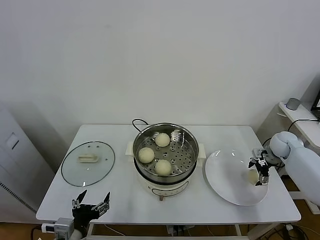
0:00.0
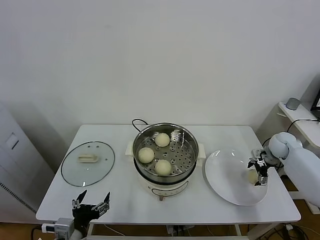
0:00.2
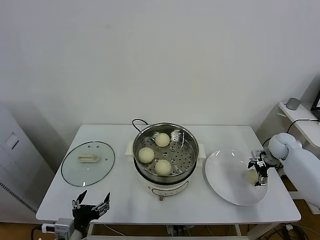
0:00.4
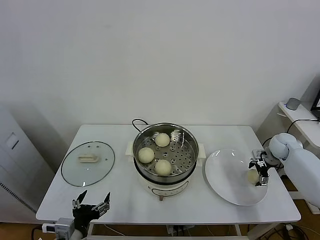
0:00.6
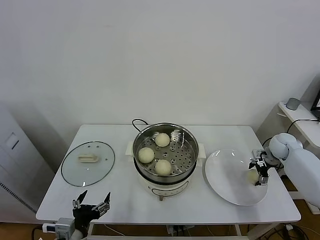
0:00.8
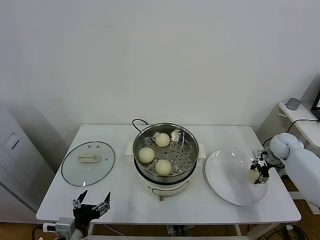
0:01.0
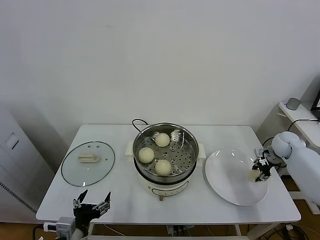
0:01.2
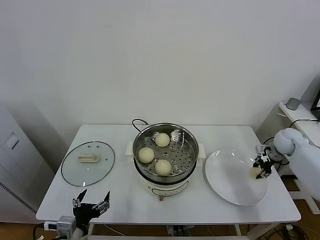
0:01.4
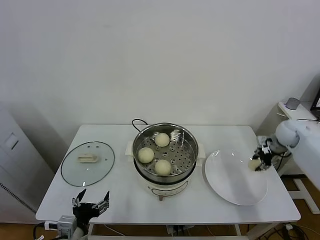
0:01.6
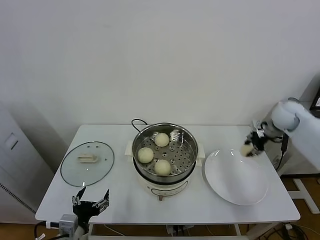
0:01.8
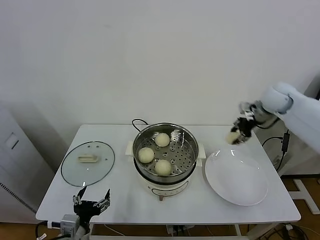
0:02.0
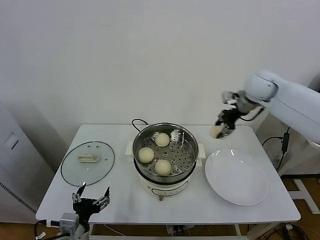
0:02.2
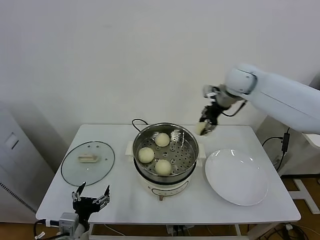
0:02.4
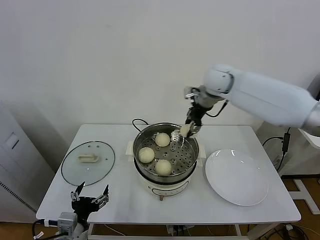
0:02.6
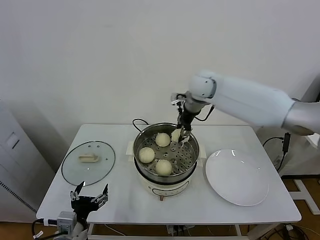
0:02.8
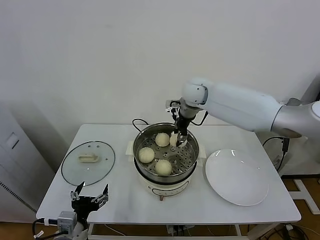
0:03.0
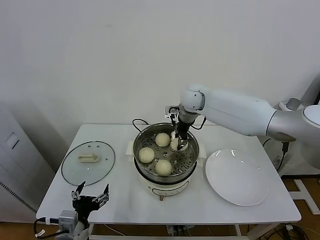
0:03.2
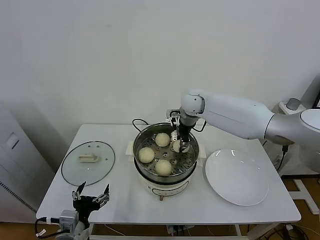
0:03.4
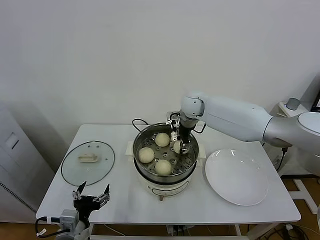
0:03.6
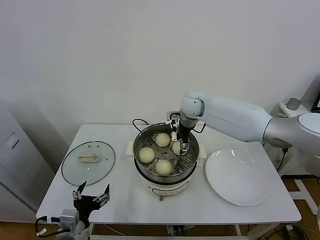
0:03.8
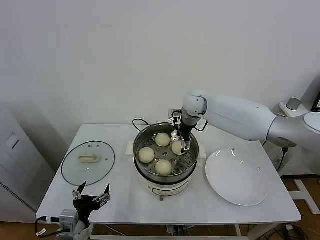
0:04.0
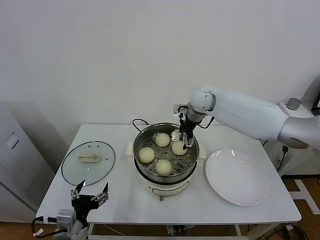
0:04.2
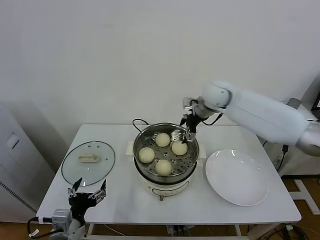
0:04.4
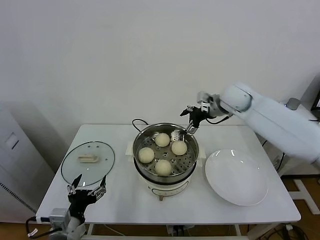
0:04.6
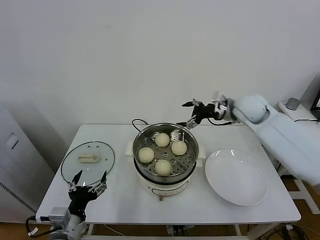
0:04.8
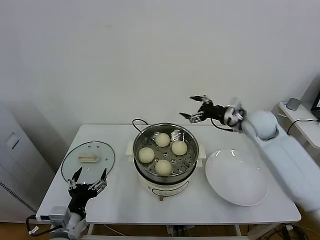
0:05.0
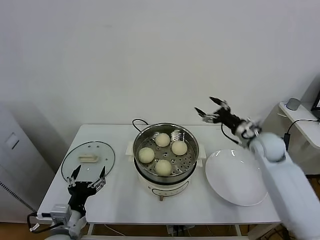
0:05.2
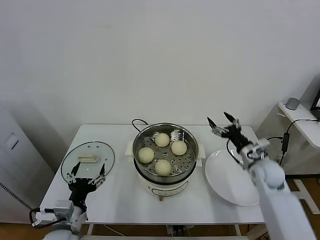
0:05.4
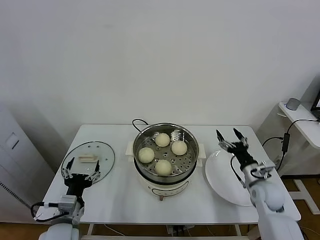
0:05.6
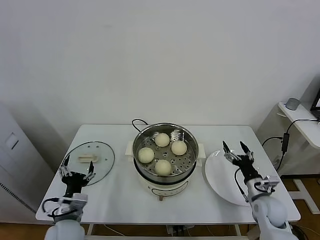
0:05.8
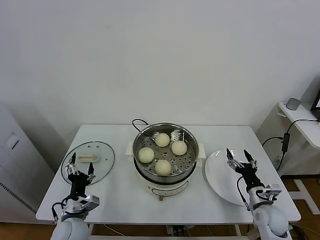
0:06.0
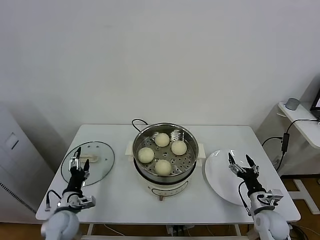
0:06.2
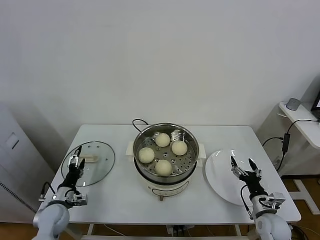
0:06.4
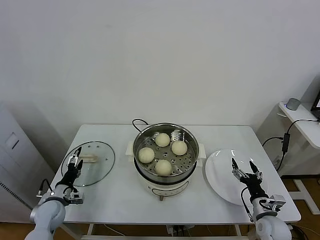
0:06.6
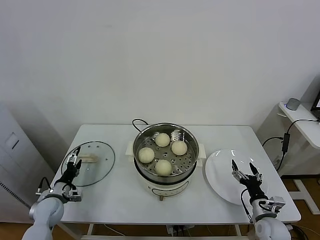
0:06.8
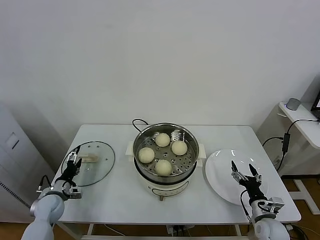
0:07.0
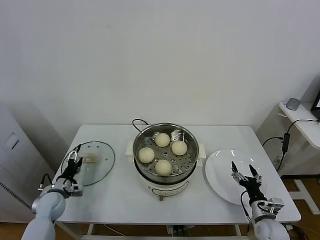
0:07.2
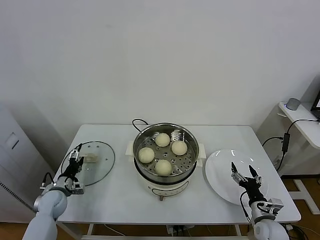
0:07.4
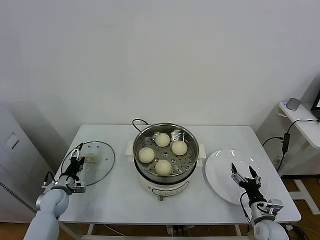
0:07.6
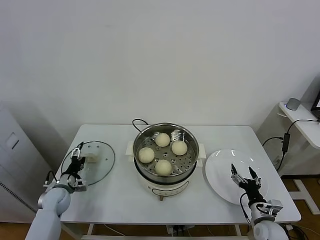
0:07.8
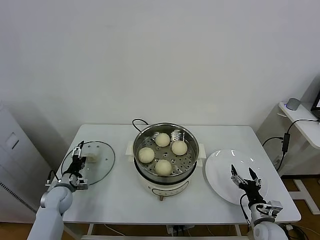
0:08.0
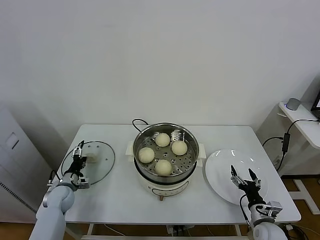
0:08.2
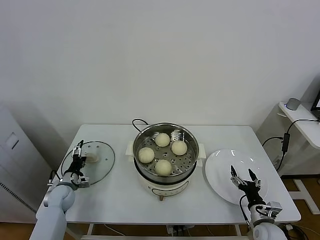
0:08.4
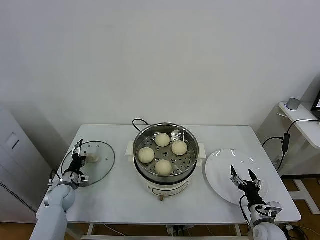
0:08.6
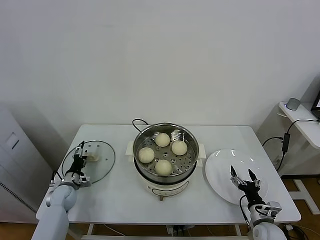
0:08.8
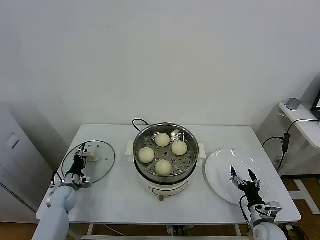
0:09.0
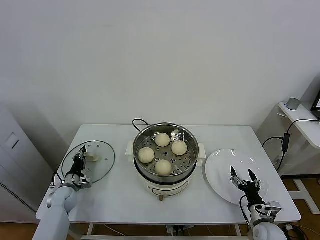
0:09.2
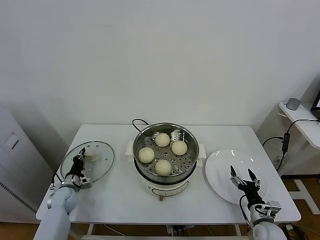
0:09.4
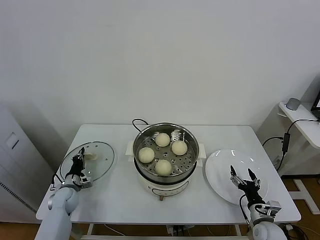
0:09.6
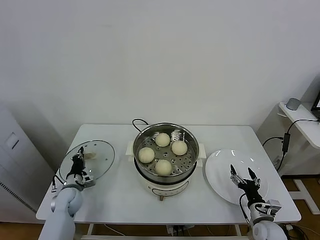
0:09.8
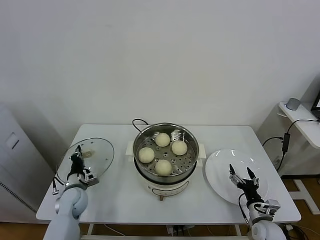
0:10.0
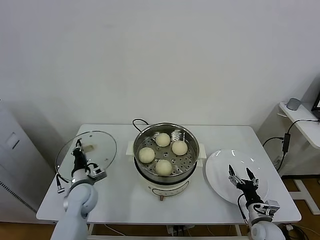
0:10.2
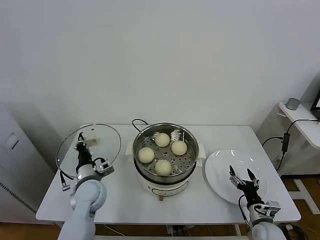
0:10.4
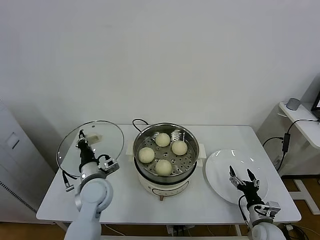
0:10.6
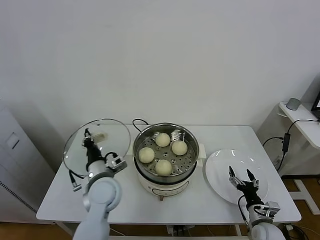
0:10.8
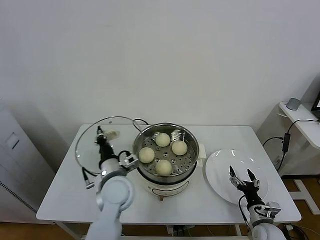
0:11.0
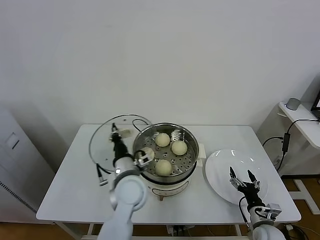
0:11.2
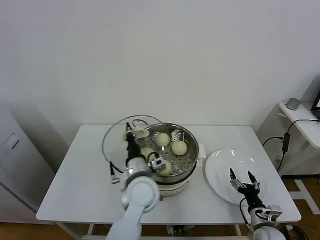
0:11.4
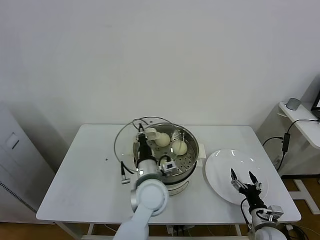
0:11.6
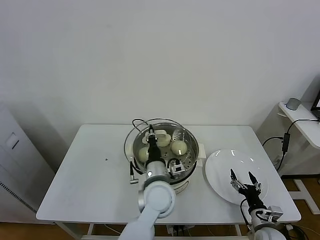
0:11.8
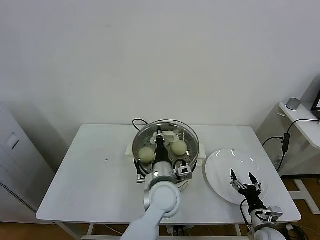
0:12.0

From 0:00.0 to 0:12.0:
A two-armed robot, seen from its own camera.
Task of the whole recording: take steamed baozi put them in steamer.
Step, from 0:01.4 to 0:04.0: Place the baozi on the steamer with right gripper.
Step, from 0:04.2 to 0:09.4: Grasp the pot lid with left gripper.
From 0:00.0 to 0:01.6: The right gripper travels upward by some 5 cm, and closes up.
From 0:01.6 to 0:03.0: The right gripper shifts about 35 cm to the left.
From 0:03.0 to 0:04.4: The right gripper shifts roughly 5 cm to the right, and opens its fingers.
From 0:04.4 to 0:06.0: The left gripper goes roughly 10 cm forward and downward, while the right gripper heads downward, backward and to the right, covering some 50 cm.
From 0:06.0 to 0:07.6: The right gripper ends up approximately 5 cm from where it was. The left gripper heads to the left, forward and downward, covering approximately 20 cm.
From 0:07.6 to 0:09.0: The left gripper closes its fingers.
From 0:09.0 to 0:10.4: The left gripper travels to the right and upward by approximately 20 cm, and closes its fingers.
From 0:10.4 to 0:12.0: The left gripper travels to the right by about 25 cm.

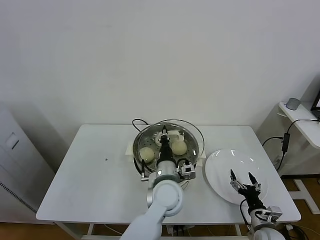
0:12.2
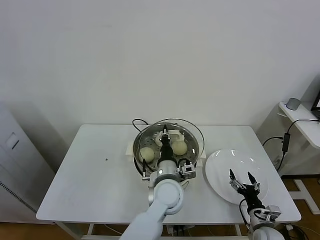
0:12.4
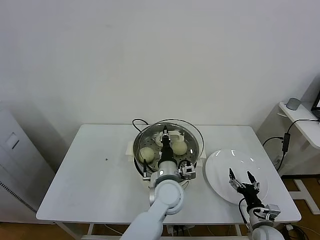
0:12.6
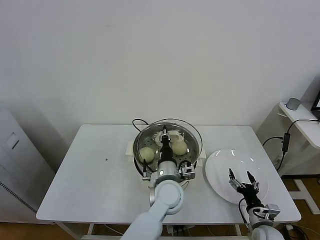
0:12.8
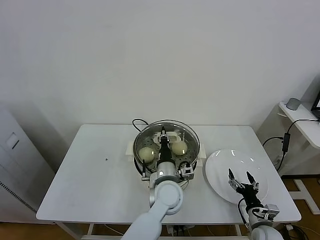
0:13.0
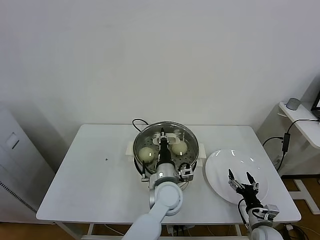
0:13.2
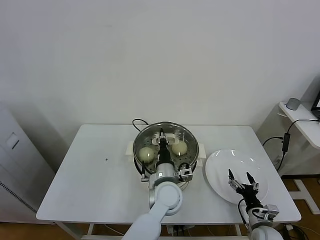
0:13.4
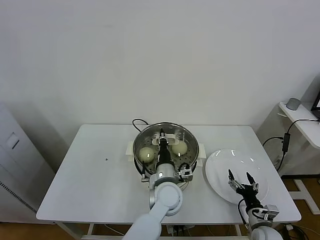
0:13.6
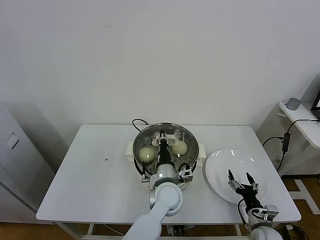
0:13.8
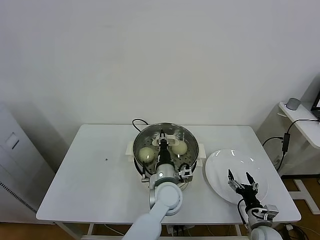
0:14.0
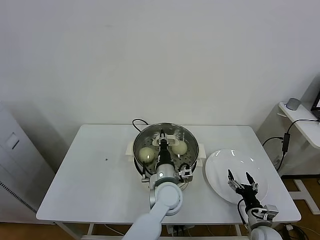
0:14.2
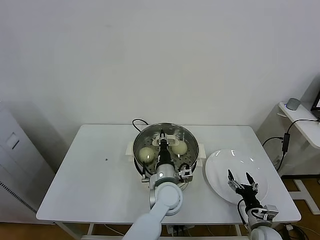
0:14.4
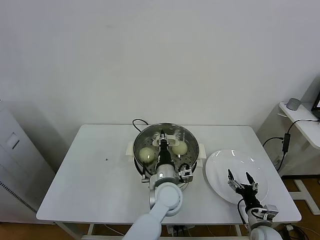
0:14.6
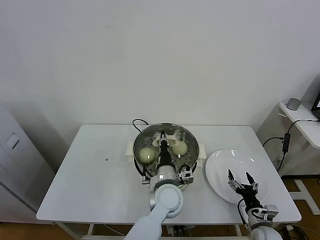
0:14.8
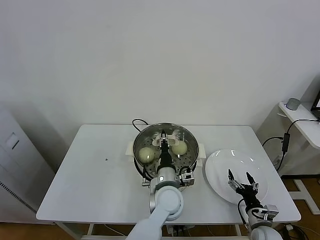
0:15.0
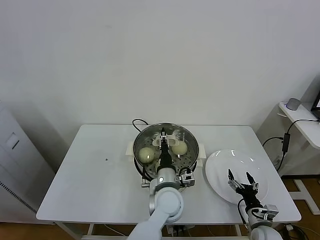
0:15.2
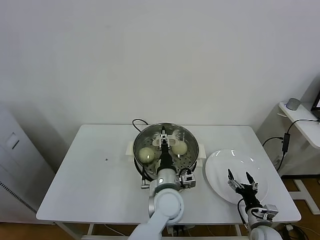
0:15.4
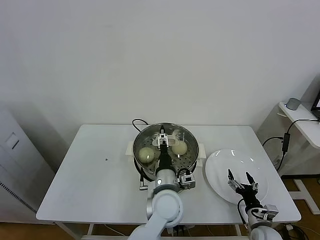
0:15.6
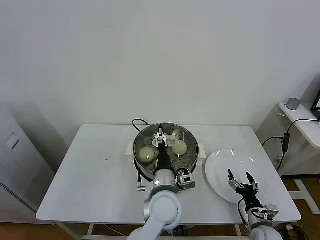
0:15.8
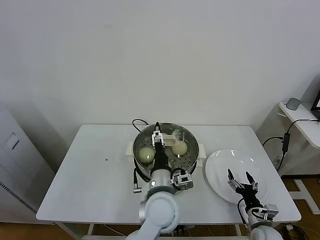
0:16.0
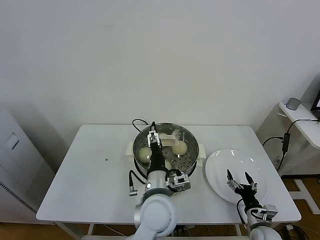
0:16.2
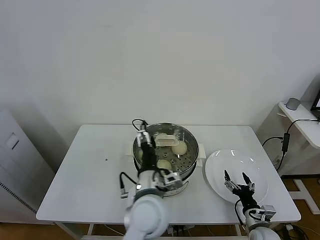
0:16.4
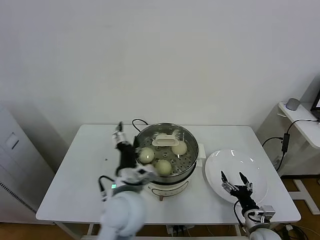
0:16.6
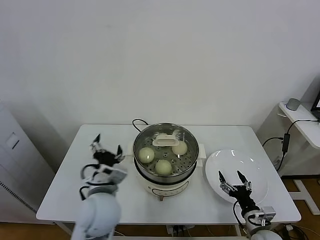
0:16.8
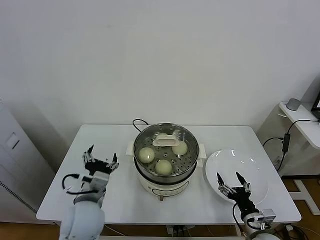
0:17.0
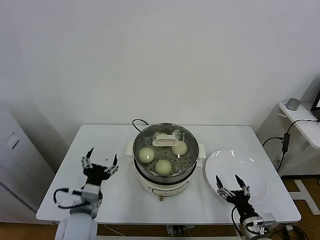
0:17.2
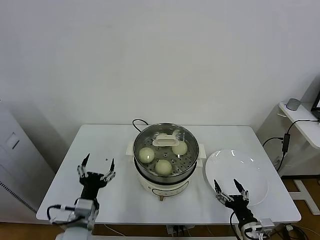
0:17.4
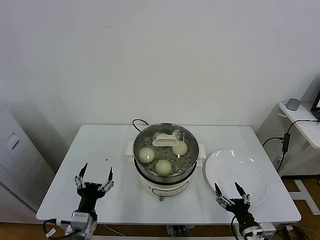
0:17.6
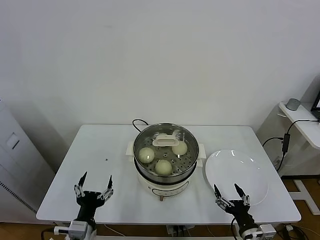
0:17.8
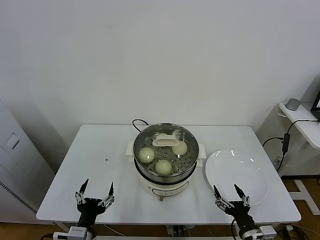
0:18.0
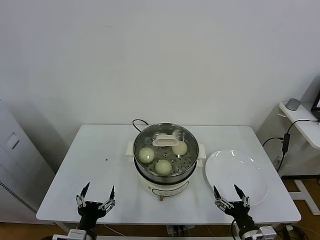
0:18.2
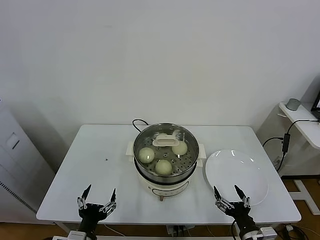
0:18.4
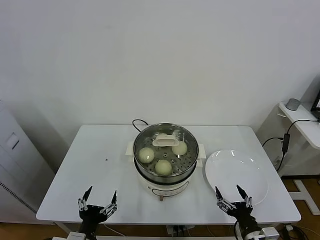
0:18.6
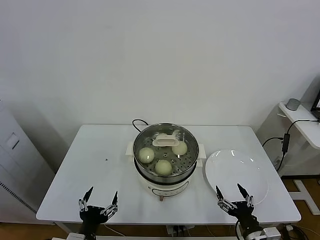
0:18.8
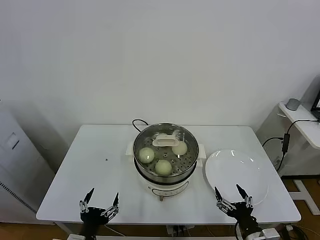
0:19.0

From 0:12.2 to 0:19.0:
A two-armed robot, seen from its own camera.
Task of the whole recording: take steamed baozi put them in steamer.
Step, from 0:12.2 to 0:15.2: Place the pot lid on the steamer with left gripper.
From 0:12.2 to 0:13.6: The grippers move only a little.
From 0:13.6 to 0:15.0: Neither gripper changes place.
From 0:15.0 to 0:16.2: The left gripper is displaced upward and backward by approximately 10 cm, and opens its fingers.
From 0:16.2 to 0:17.6: The left gripper is displaced to the left by about 25 cm. The right gripper goes approximately 10 cm backward, upward and to the left.
From 0:17.6 to 0:19.0: The left gripper travels backward by roughly 5 cm.

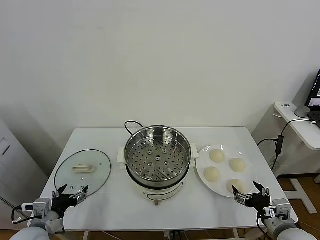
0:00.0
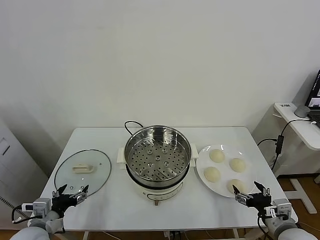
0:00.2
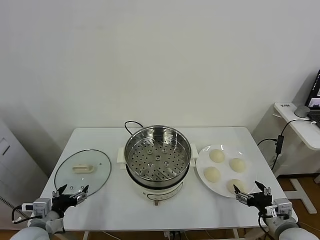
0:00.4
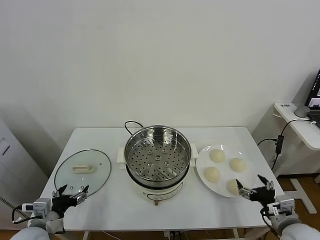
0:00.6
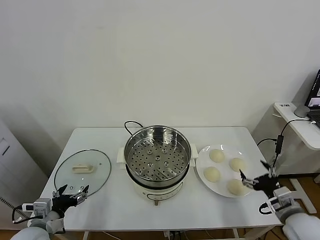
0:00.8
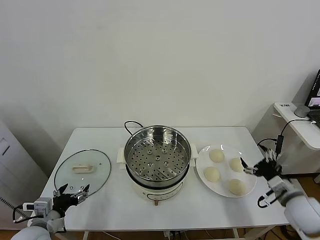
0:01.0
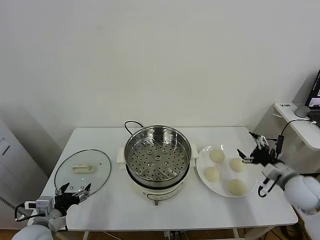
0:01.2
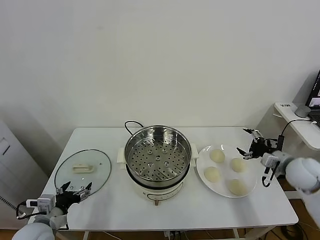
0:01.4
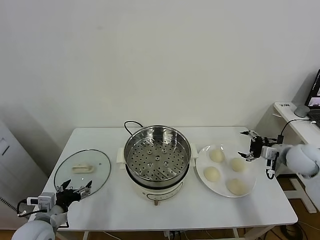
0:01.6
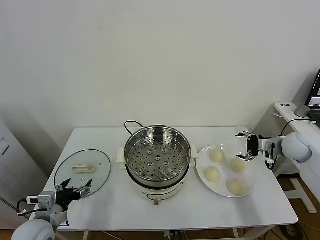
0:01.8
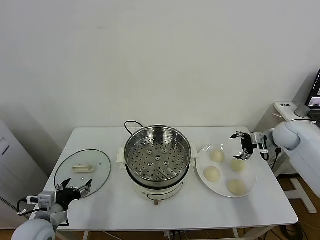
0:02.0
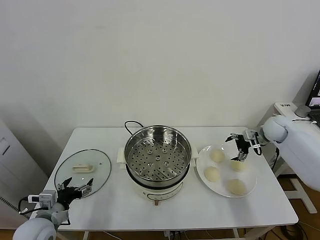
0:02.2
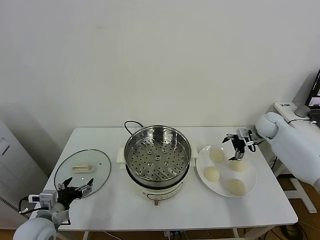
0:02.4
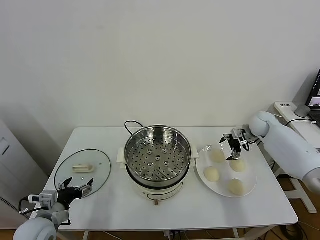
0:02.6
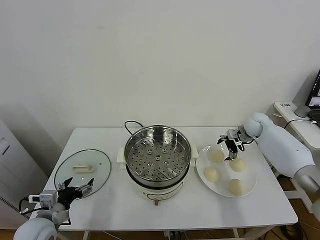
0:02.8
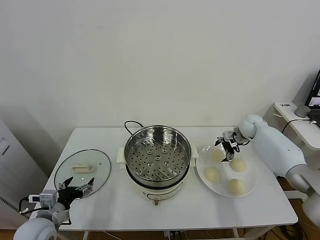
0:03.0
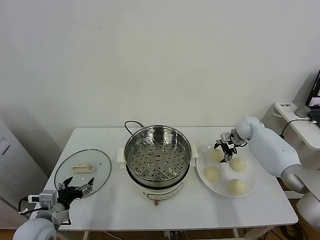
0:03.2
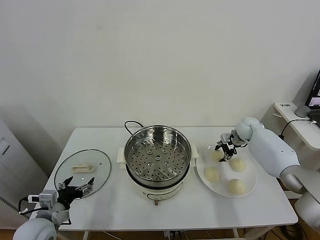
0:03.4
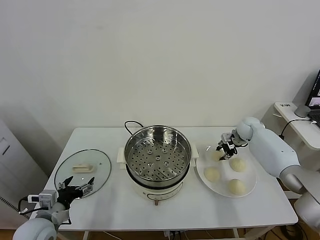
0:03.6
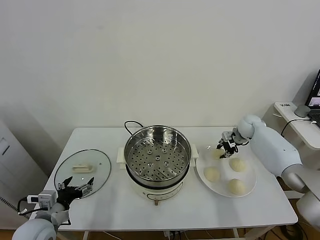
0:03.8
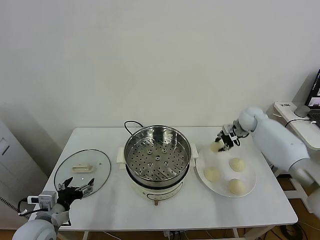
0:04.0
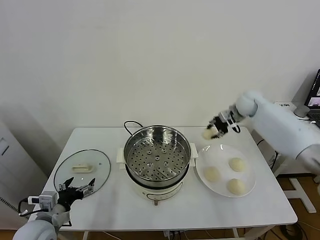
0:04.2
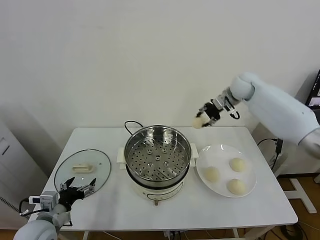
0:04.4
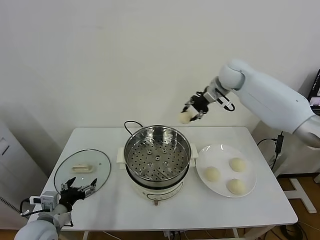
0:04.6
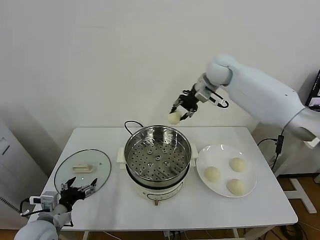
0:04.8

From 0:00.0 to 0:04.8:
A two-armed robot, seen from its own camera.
Task of the whole recording: take steamed baozi put them in steamer.
Step, from 0:00.0 to 0:03.4: Grasp the baozi in the plate with right gripper.
From 0:01.6 to 0:03.2: The right gripper moves forward and to the left, about 20 cm, and closes up.
From 0:03.2 to 0:04.8: The right gripper shifts some 35 cm upward and to the left, and closes up.
